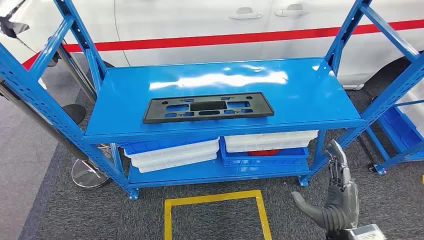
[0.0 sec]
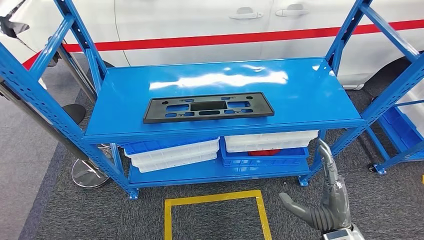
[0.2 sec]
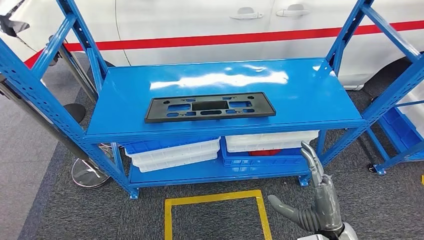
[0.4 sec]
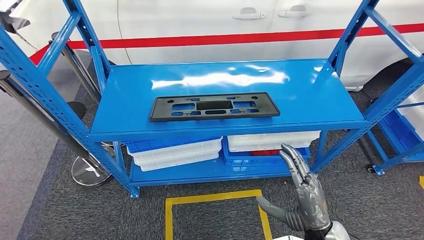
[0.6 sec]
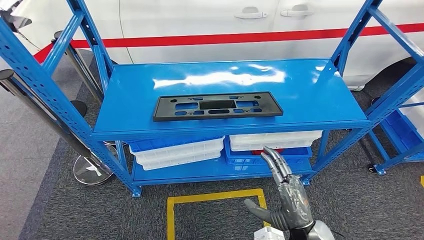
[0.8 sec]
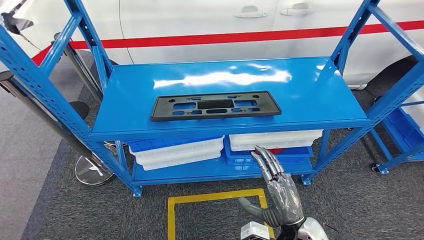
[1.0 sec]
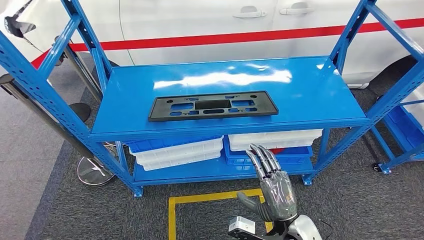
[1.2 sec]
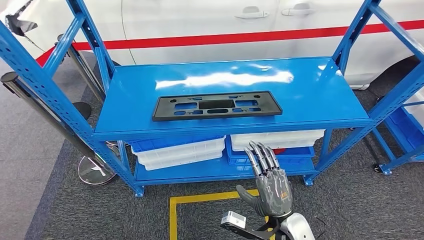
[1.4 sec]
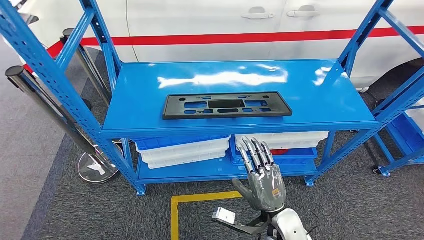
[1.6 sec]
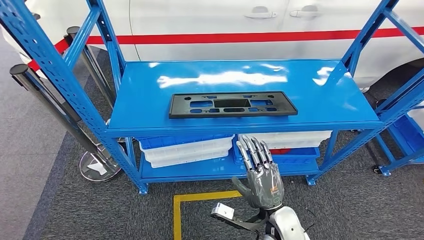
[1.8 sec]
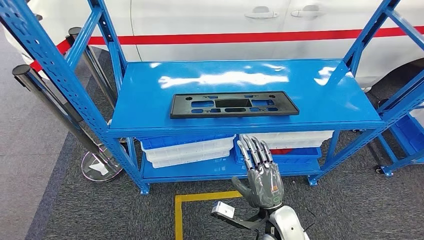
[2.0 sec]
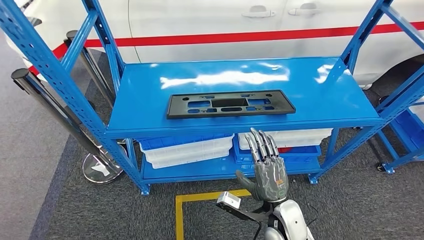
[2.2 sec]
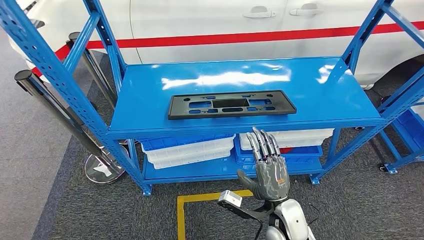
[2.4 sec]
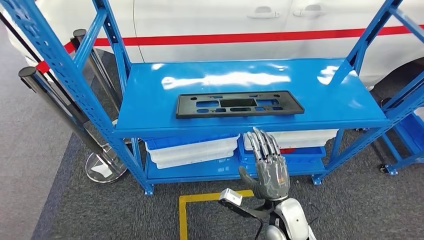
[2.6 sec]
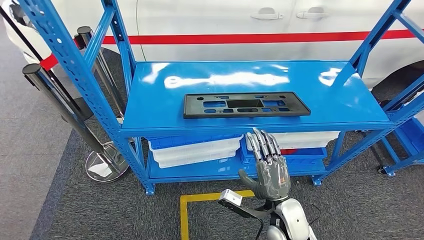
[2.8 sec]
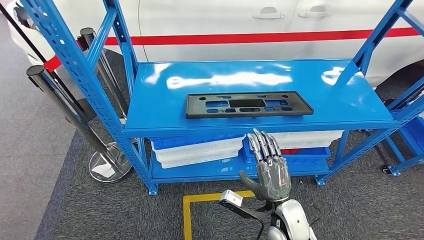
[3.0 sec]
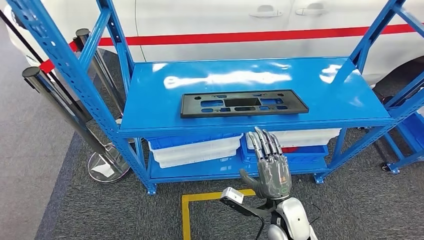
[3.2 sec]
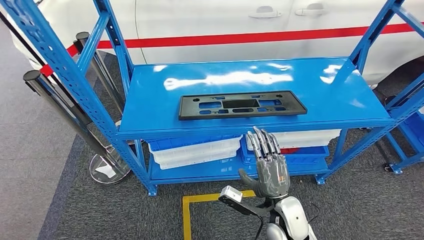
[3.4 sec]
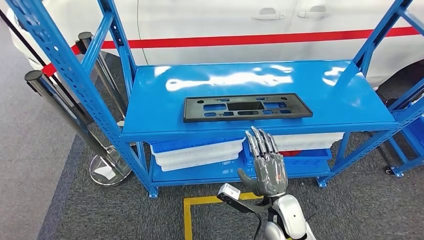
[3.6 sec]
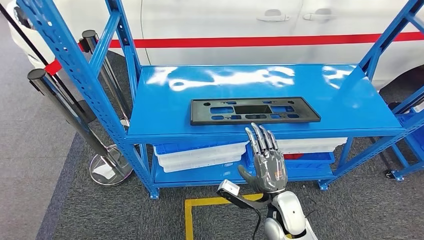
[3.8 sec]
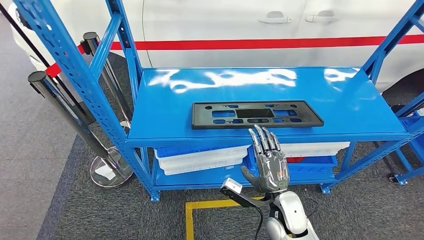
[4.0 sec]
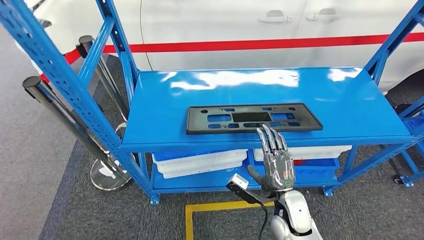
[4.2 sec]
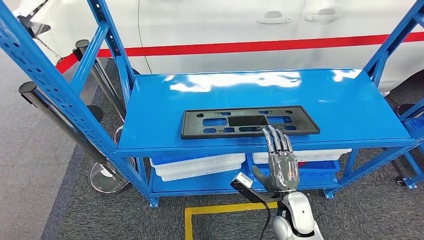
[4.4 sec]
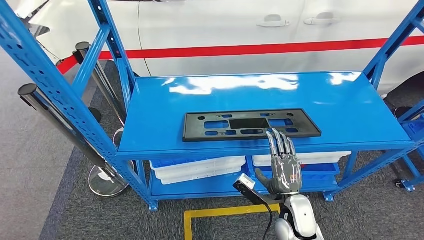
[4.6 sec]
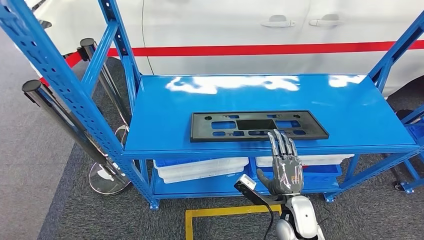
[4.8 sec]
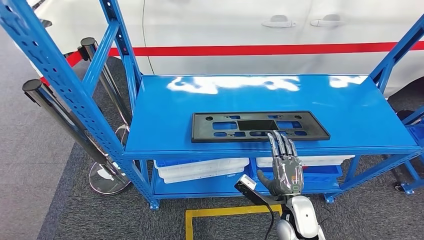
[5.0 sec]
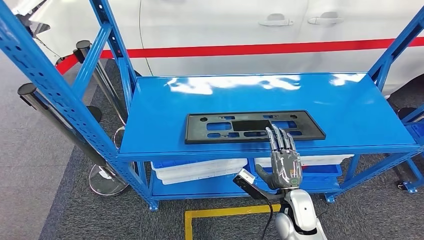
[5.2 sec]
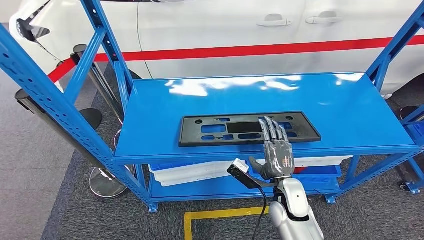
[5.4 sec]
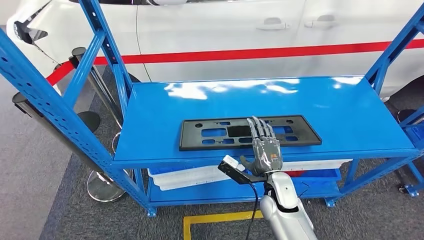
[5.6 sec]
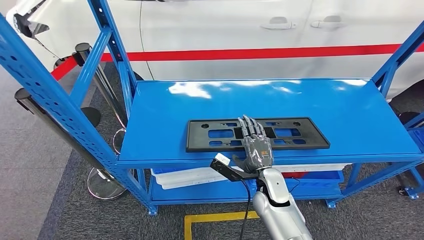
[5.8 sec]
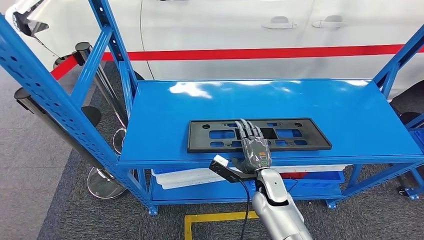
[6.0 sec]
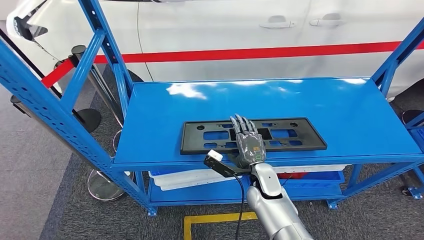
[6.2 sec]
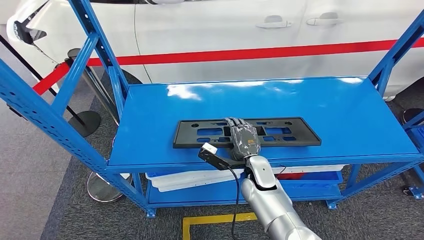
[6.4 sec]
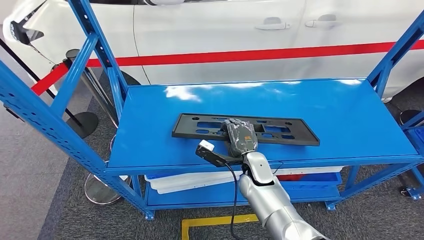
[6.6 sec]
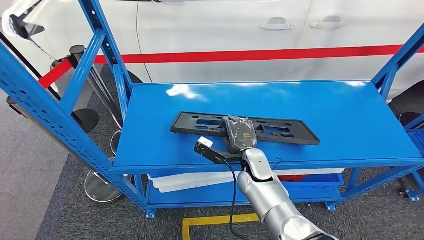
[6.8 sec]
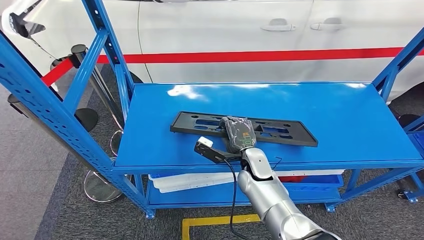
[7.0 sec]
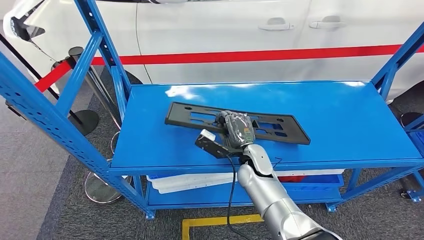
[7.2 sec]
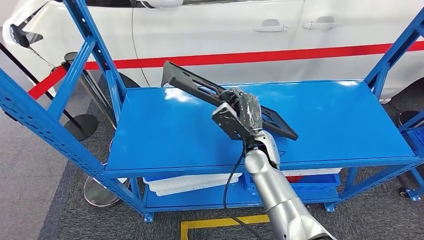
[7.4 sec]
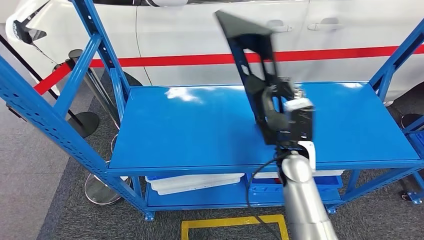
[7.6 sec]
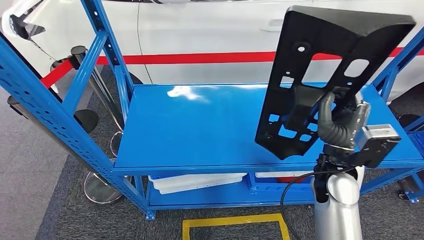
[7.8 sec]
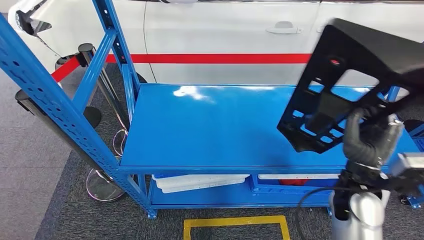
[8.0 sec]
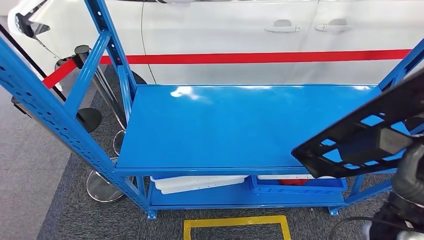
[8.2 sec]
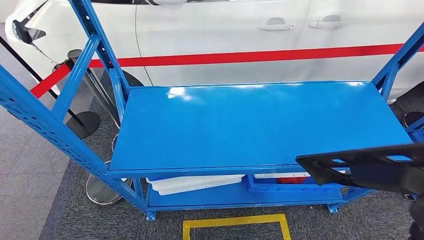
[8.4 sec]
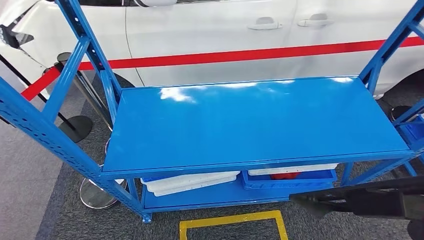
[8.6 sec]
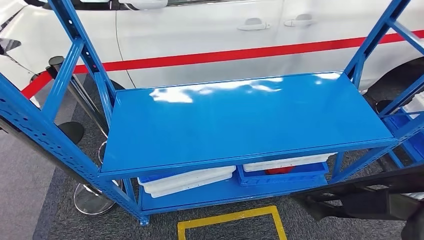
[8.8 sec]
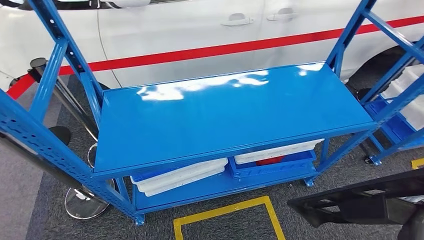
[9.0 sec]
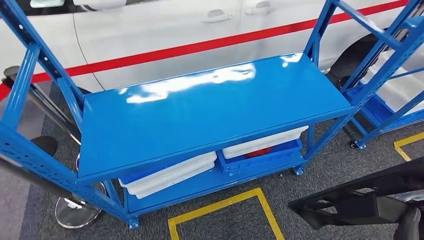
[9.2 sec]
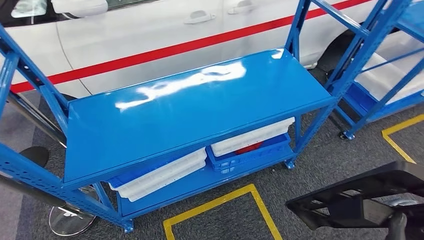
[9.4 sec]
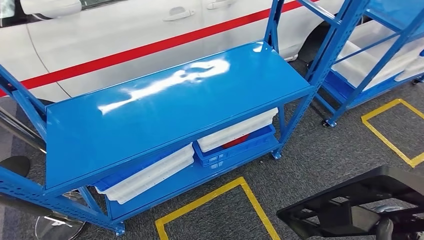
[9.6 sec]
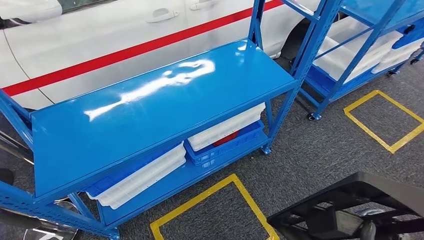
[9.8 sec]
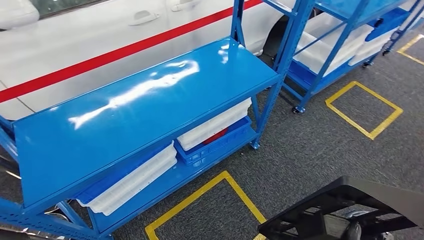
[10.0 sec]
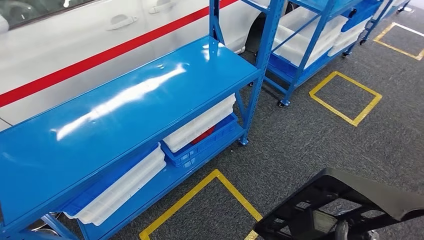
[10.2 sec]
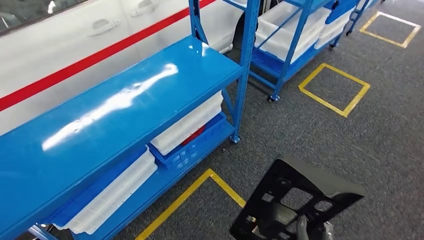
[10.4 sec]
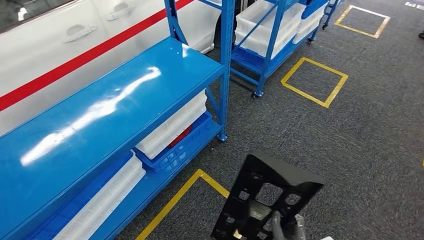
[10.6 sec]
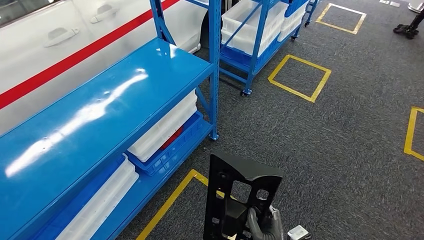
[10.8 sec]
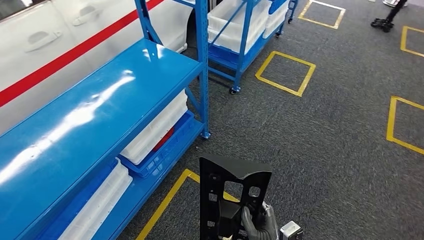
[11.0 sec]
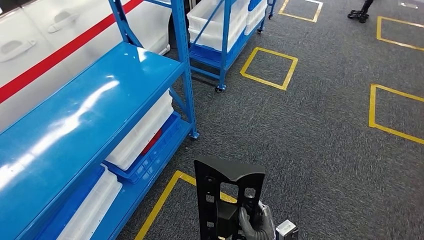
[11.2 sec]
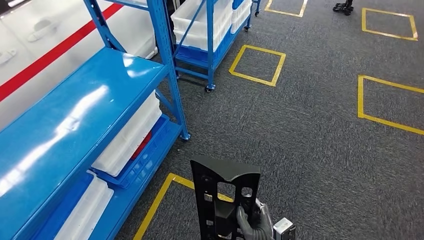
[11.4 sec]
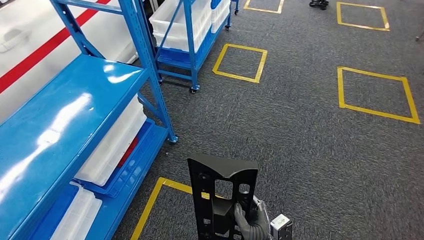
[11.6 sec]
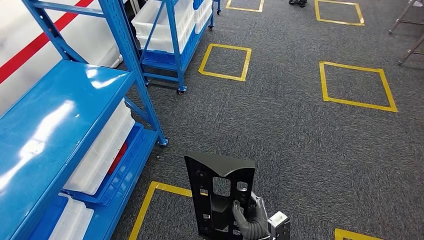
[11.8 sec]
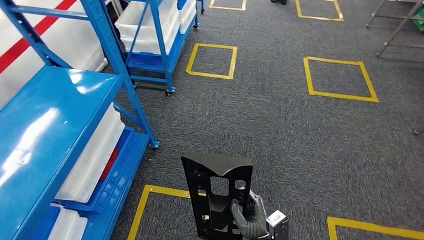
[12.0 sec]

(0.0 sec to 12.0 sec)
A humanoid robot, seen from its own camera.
Step, 0.0 sec - 9.0 sec: Pick up the large material from the shelf.

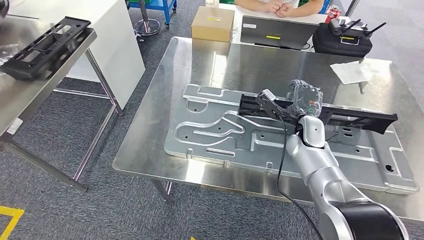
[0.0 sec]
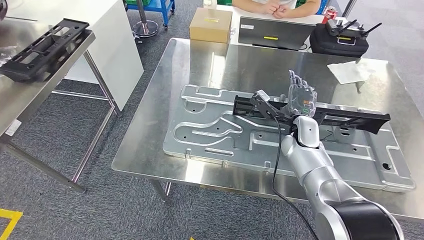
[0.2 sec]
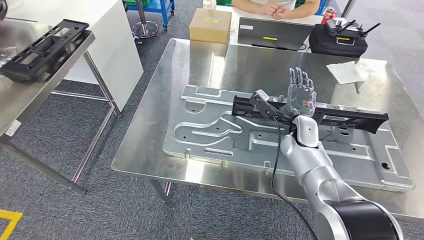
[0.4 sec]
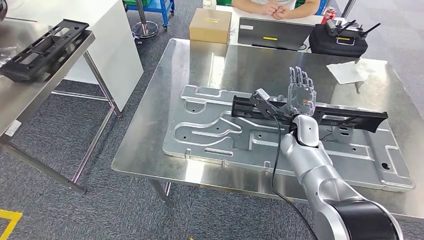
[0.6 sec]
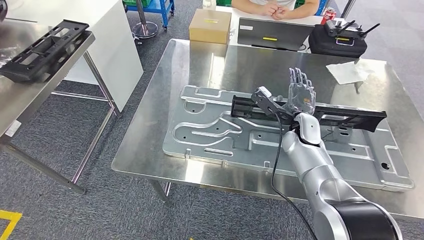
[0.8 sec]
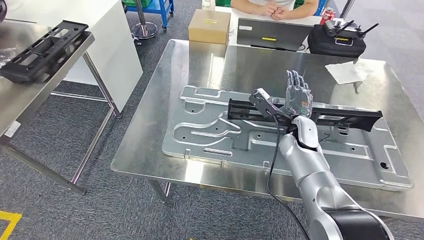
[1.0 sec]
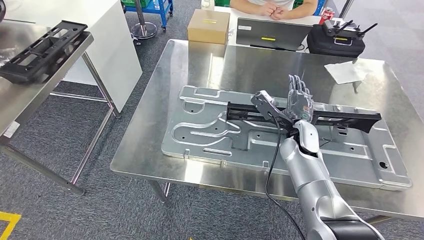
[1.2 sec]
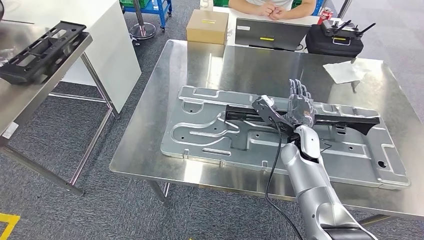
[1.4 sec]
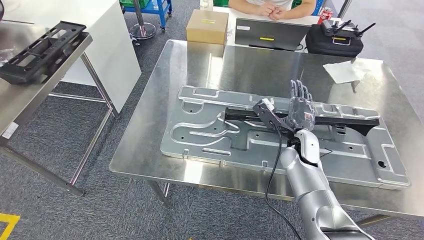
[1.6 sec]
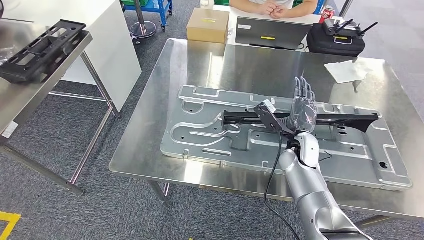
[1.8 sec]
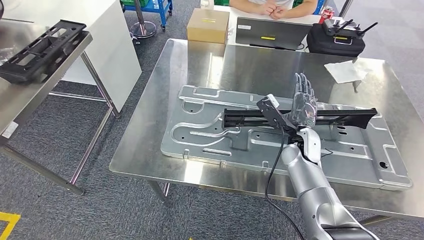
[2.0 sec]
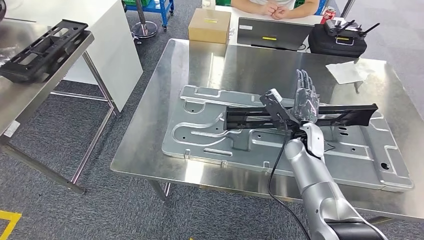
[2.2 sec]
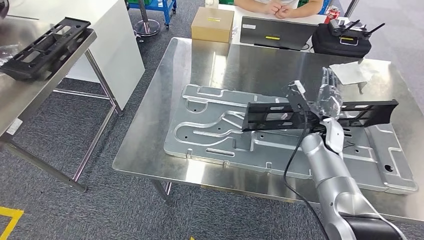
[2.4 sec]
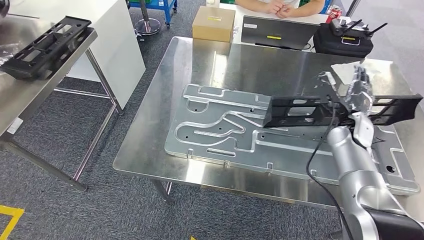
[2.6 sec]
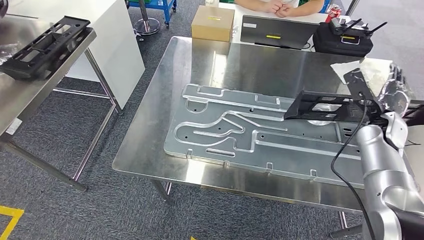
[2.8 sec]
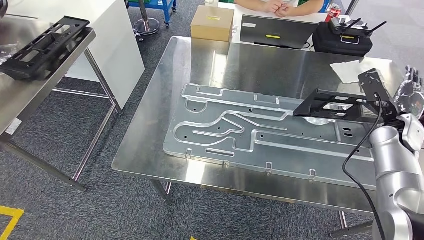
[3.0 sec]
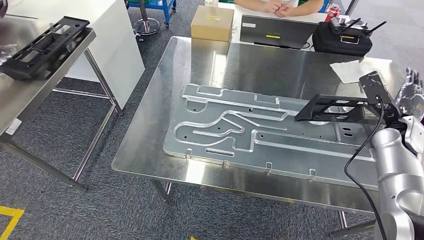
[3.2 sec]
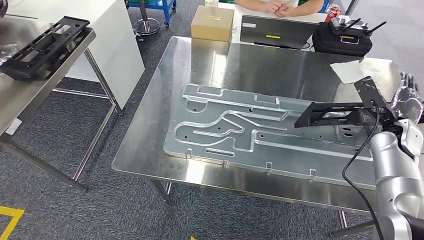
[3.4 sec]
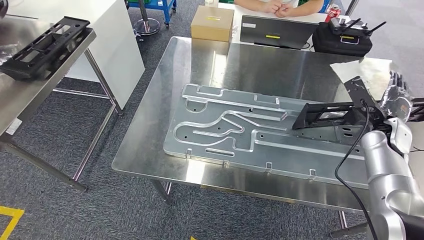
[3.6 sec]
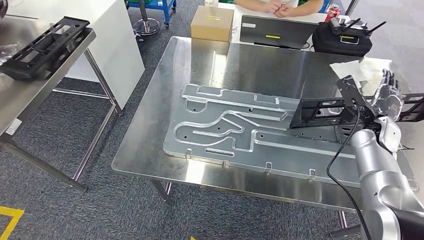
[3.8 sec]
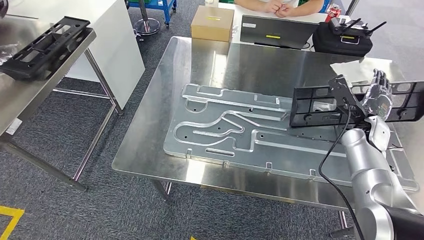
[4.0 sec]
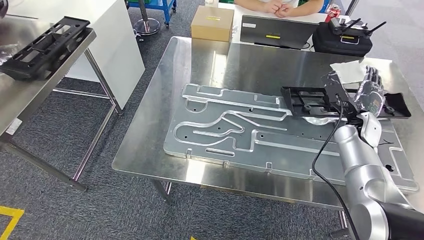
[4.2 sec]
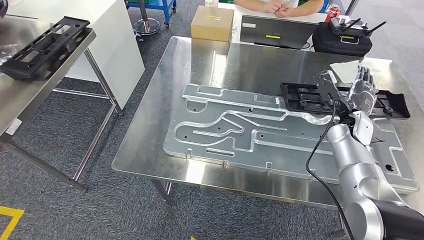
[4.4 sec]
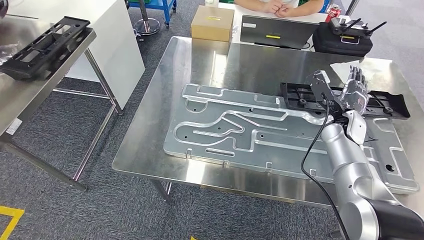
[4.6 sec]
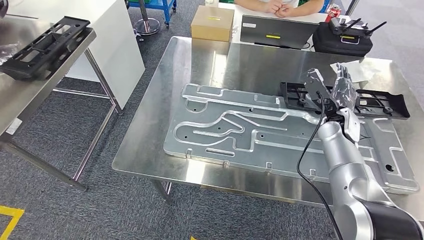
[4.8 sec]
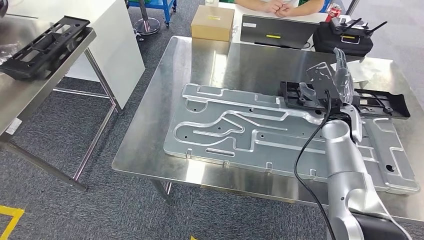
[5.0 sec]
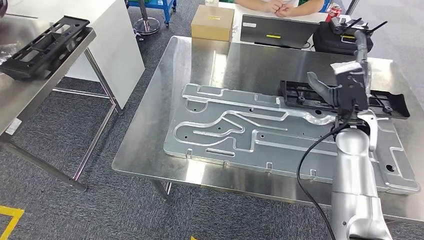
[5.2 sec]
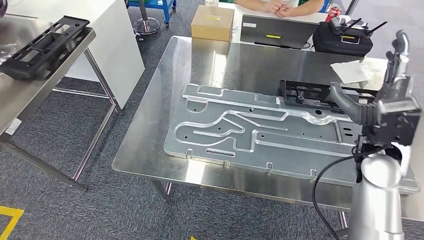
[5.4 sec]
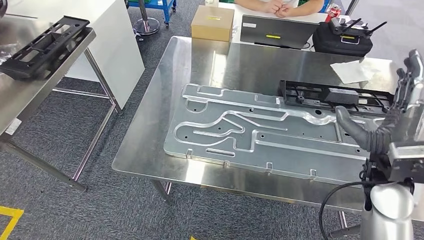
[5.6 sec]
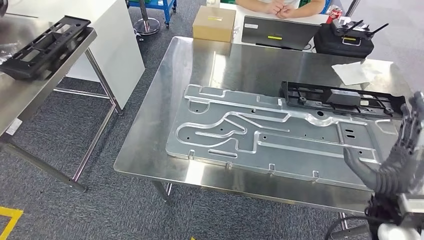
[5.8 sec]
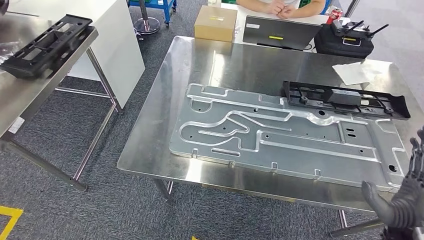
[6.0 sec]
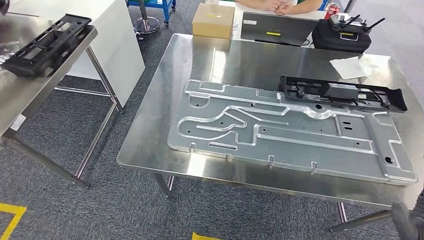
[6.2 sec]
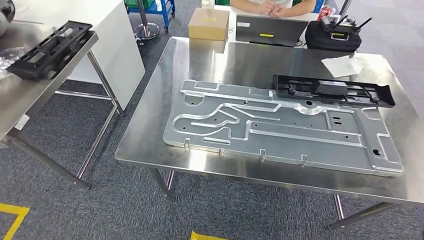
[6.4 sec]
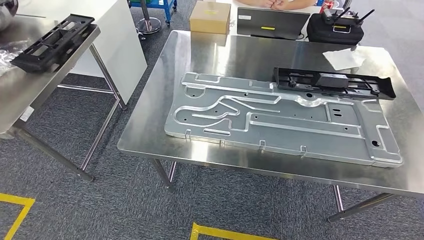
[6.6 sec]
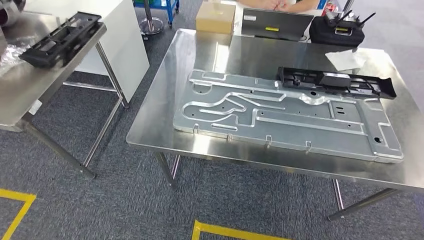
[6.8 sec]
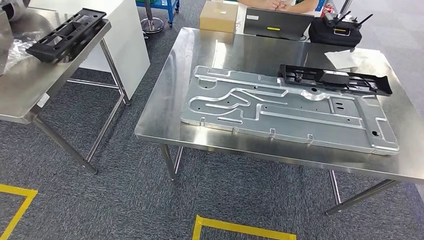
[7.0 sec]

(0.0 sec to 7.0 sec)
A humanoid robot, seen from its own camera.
Step, 0.0 sec - 5.8 sec: Insert the large material into the corresponding slot on the workbench.
2.8 sec - 4.2 sec: The hands make only small movements.
4.2 sec - 5.6 sec: The right hand heads backward, covering approximately 15 cm.
